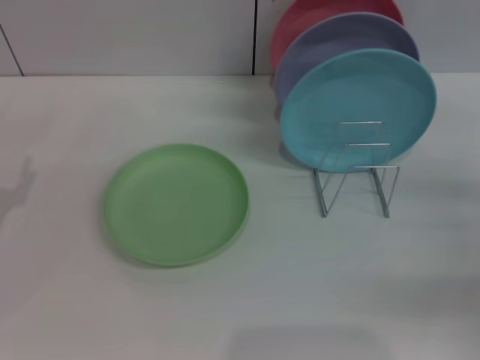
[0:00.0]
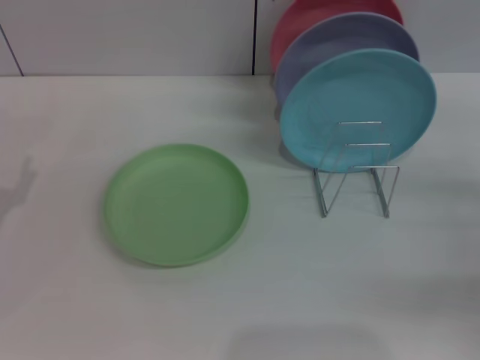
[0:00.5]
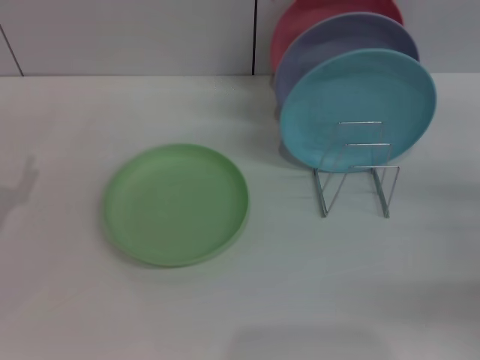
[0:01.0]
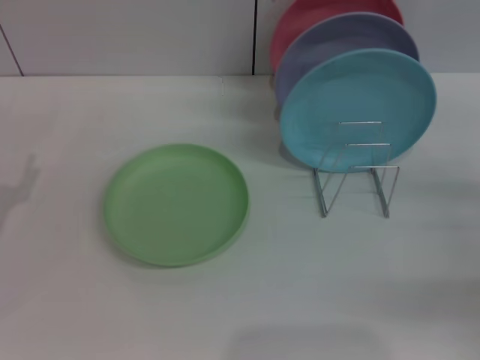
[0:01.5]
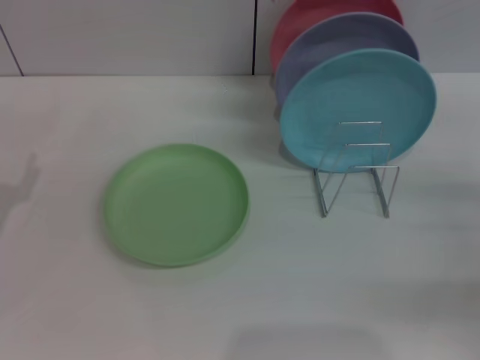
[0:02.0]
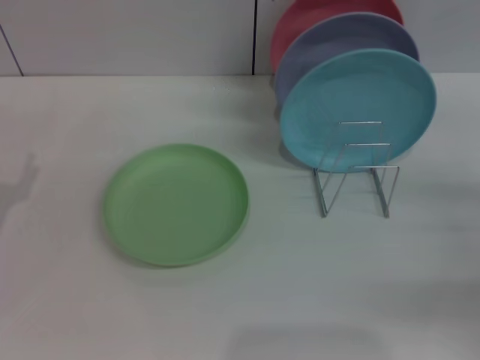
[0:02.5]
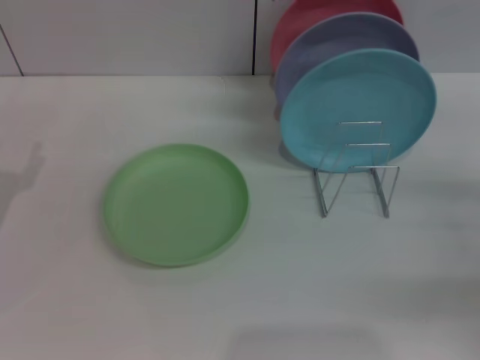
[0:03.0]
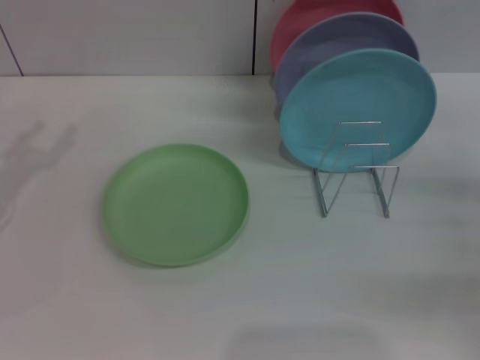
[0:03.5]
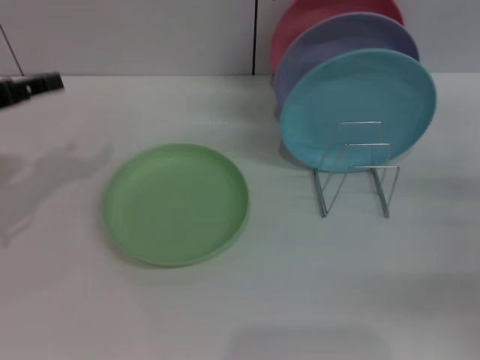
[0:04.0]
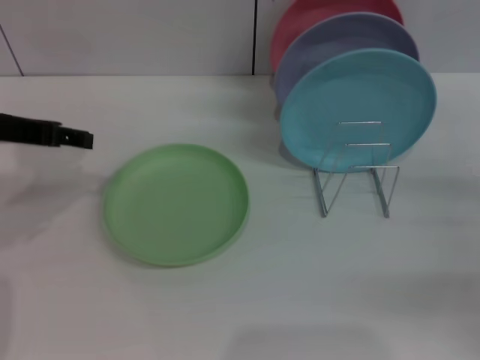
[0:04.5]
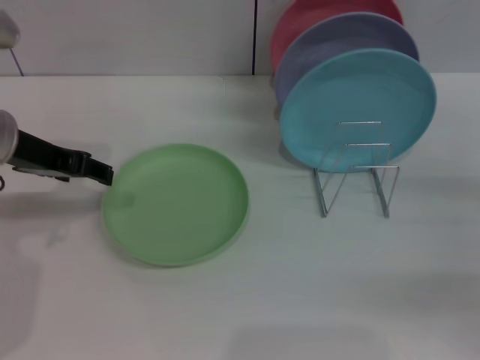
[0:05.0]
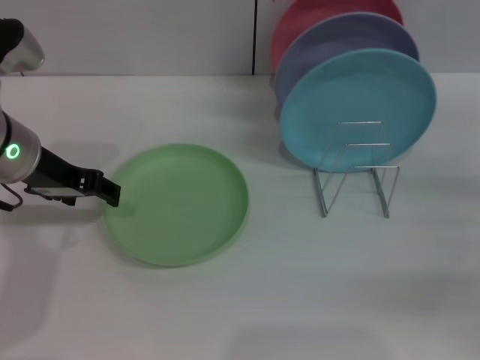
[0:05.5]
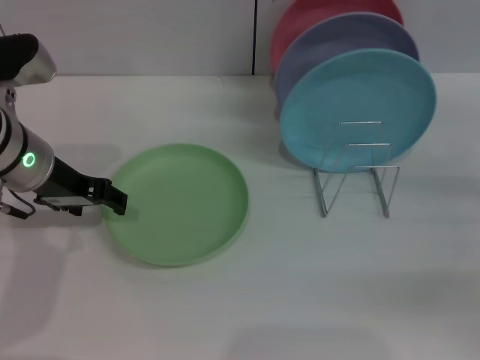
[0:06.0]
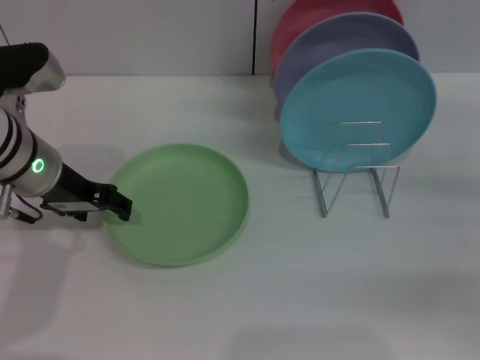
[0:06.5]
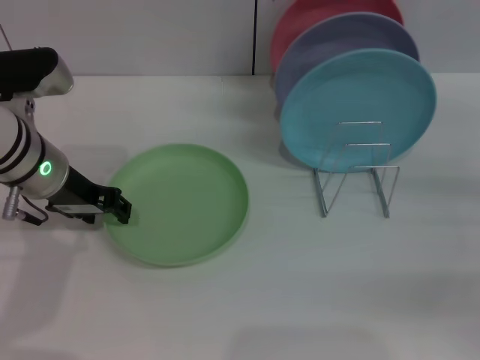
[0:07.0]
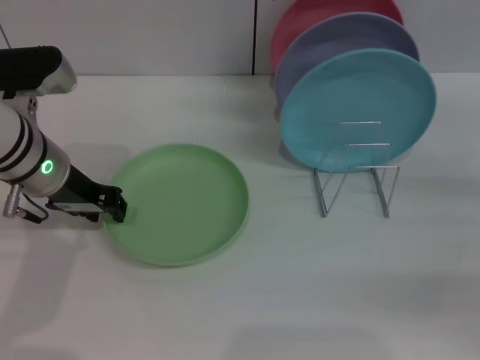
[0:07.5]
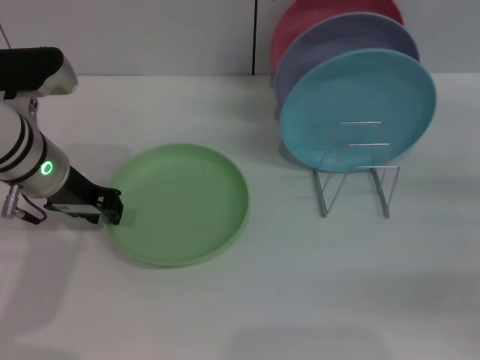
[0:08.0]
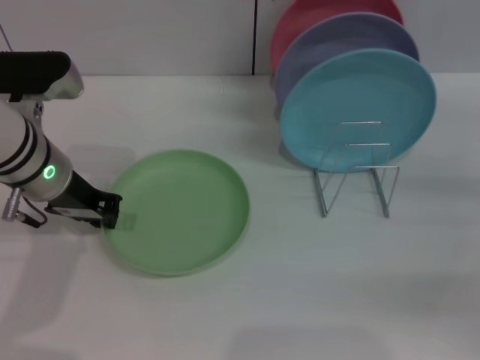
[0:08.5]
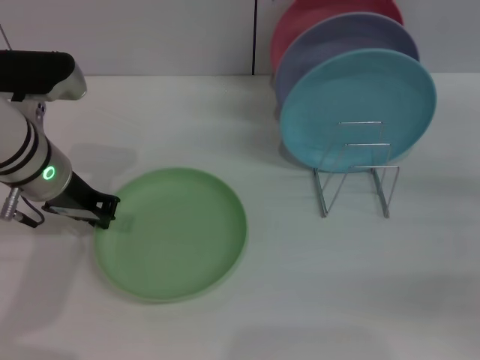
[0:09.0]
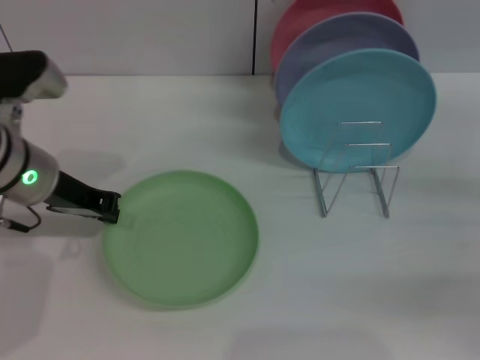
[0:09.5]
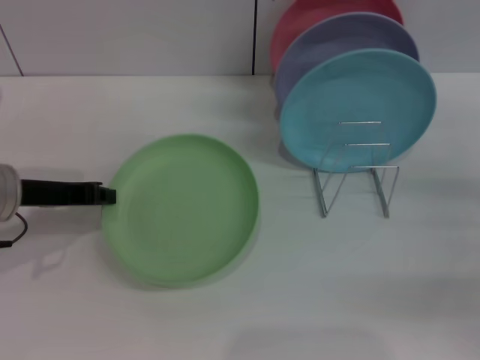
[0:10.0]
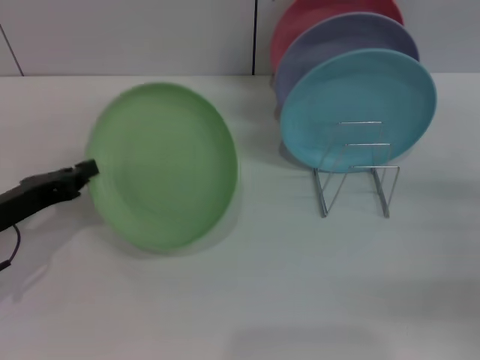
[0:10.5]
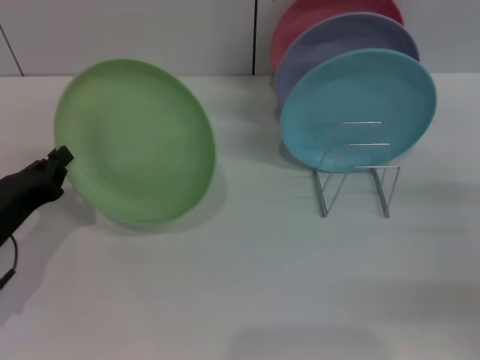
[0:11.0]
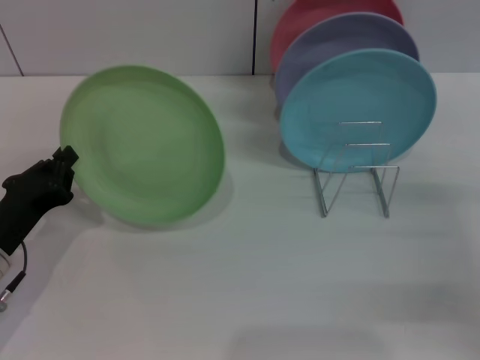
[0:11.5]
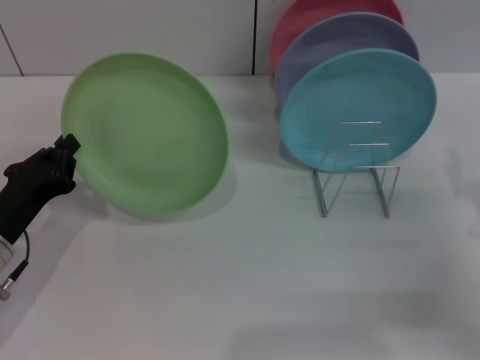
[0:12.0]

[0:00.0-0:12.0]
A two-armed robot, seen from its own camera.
Task of the whole recording: Grip the plate with one hand, pass it to the other, then set it on the shelf.
0.0 to 2.0 s: The two grippers keep their place.
2.0 to 4.0 s: The left gripper goes some 15 cm upward and forward.
4.0 to 6.0 s: The left gripper shifts about 10 cm to the right.
6.0 to 8.0 s: The left gripper closes up.
8.0 to 10.0 s: The left gripper moves to the left, approximately 5 cm, and closes its fingers.
10.0 to 12.0 s: The left gripper is displaced downward and backward by roughly 10 cm. Meanwhile the right gripper is displaced to the left by about 5 cm.

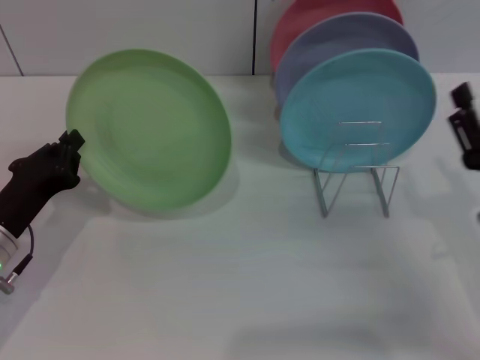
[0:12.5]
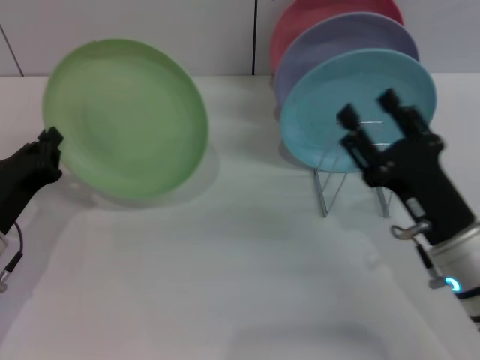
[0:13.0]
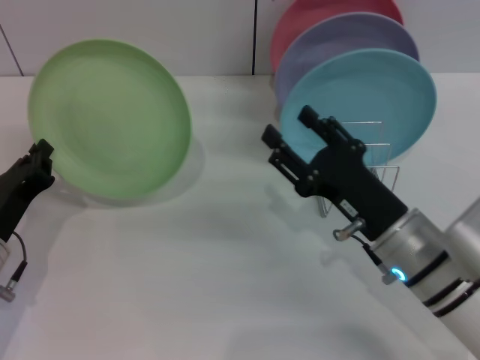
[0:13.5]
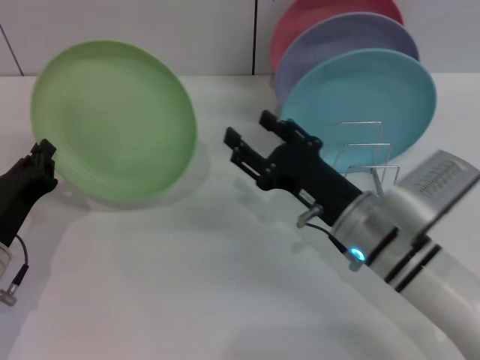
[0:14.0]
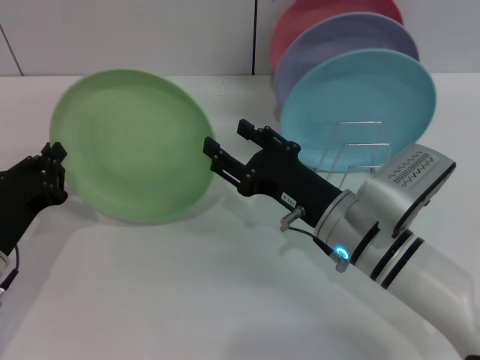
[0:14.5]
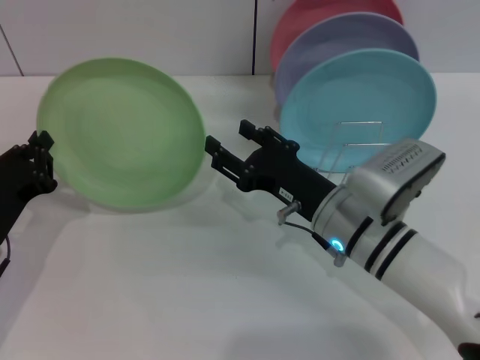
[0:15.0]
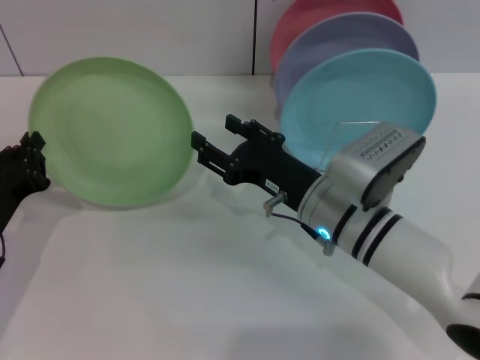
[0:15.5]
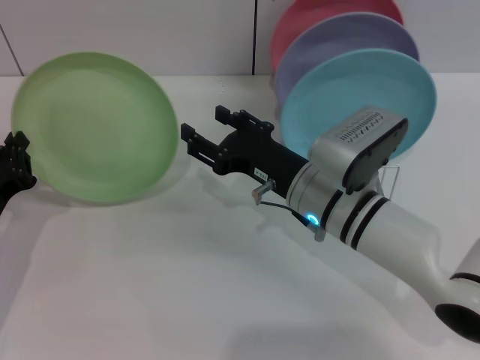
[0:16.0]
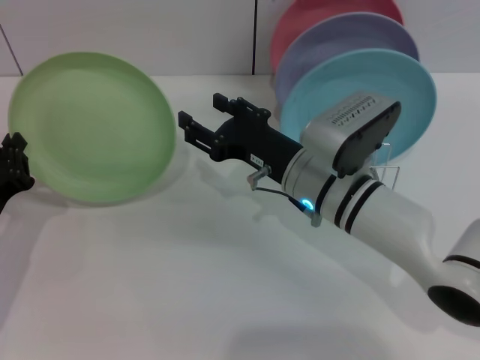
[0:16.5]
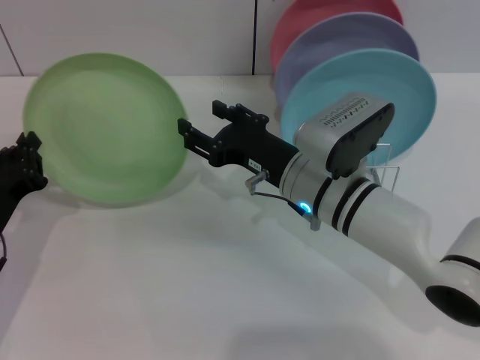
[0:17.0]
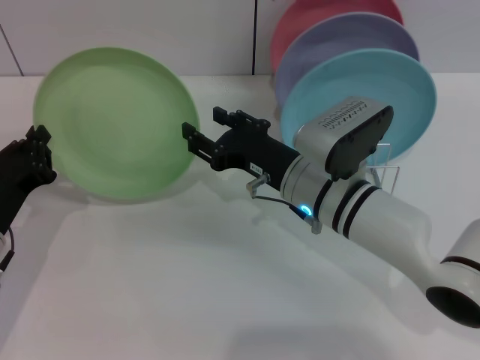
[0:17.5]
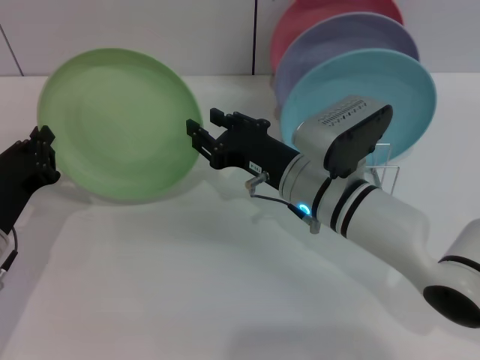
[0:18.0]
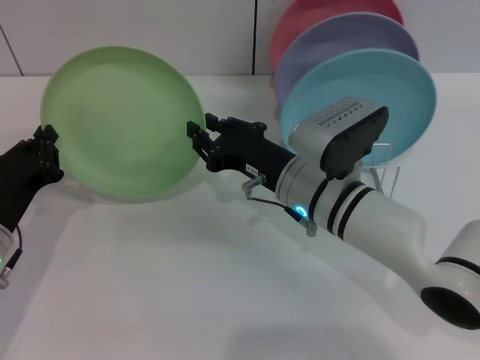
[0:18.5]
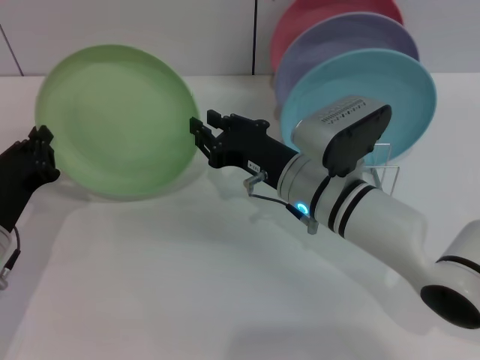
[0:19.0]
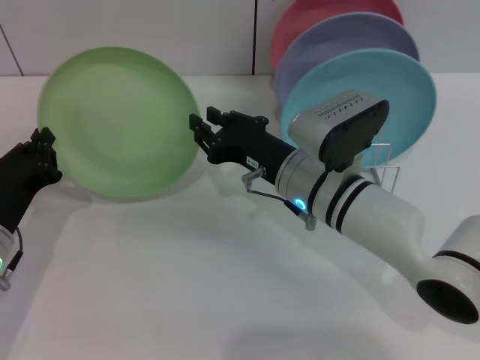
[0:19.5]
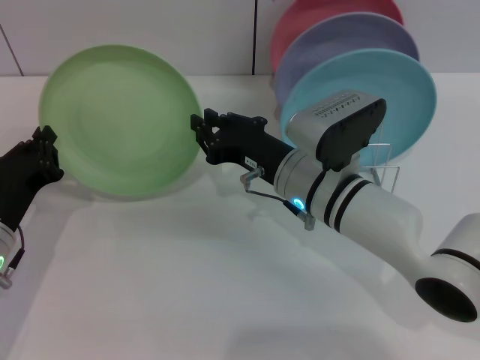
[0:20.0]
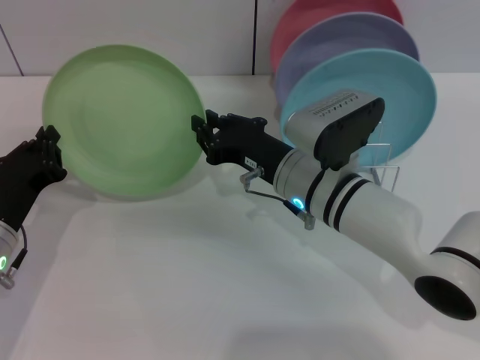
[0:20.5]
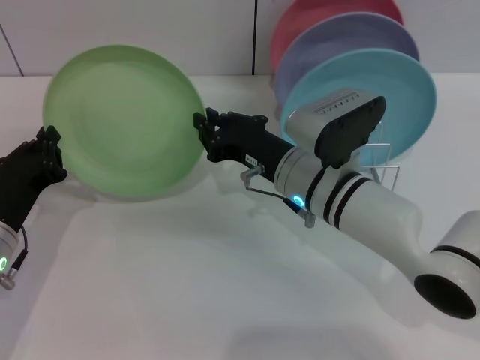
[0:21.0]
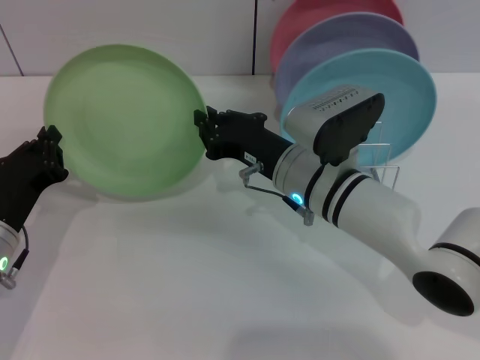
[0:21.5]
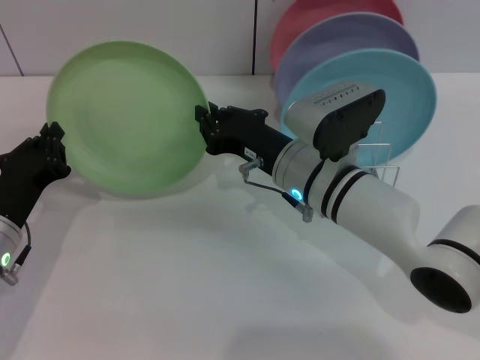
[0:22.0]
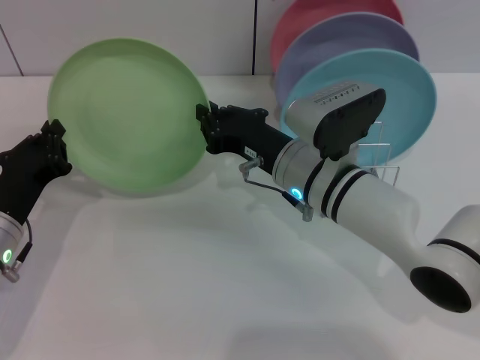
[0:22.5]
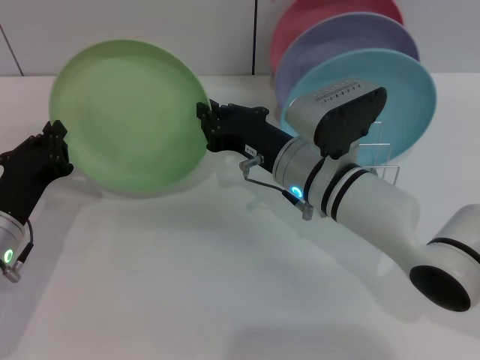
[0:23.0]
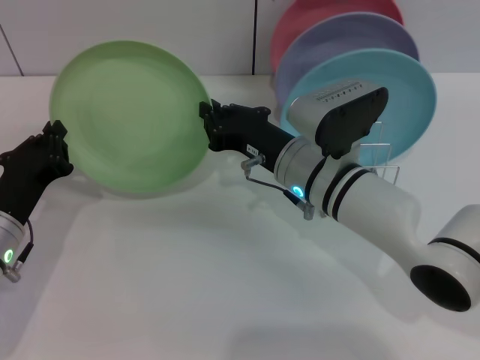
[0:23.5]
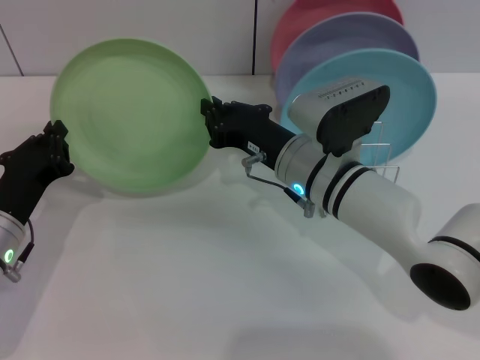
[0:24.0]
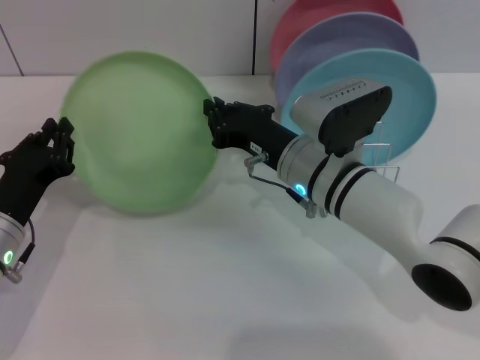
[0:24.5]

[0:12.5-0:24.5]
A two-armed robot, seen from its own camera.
Task of the whole recording: Grip the plate with one hand, pass it to the other, then set it on the shelf.
12.5 to 14.5 s: The right gripper is displaced to the left and forward by approximately 15 cm.
14.5 to 16.5 s: The right gripper shifts by about 5 cm.
16.5 to 18.5 s: The right gripper closes.
18.5 to 20.5 s: Both grippers stay about where they are.
20.5 to 24.5 s: Both grippers stay put.

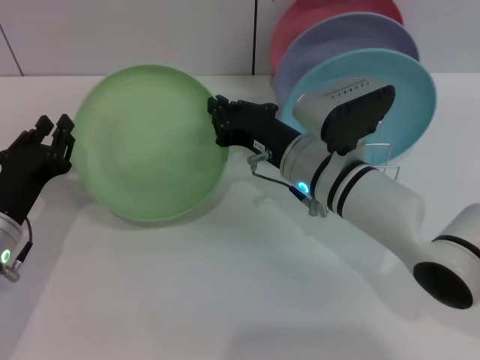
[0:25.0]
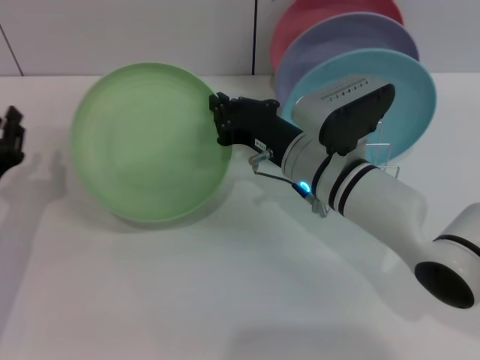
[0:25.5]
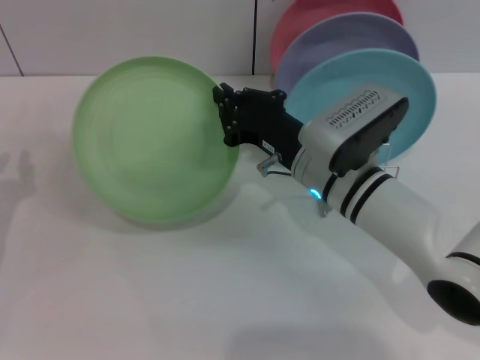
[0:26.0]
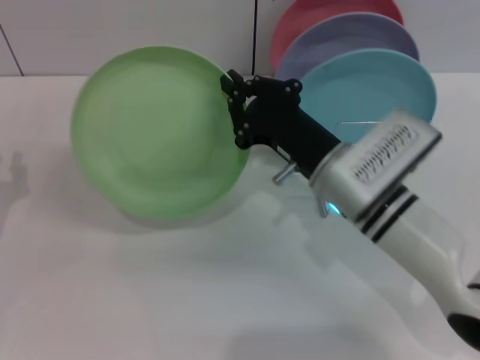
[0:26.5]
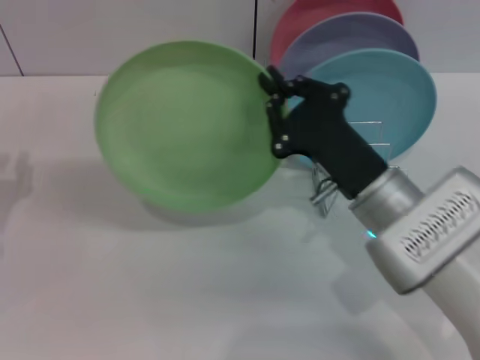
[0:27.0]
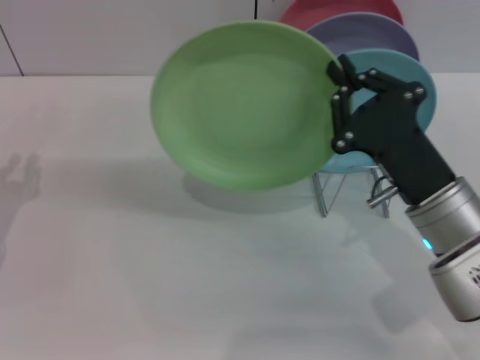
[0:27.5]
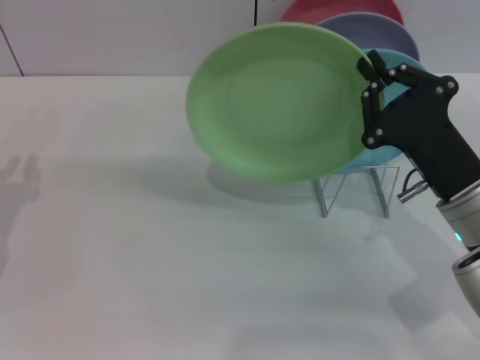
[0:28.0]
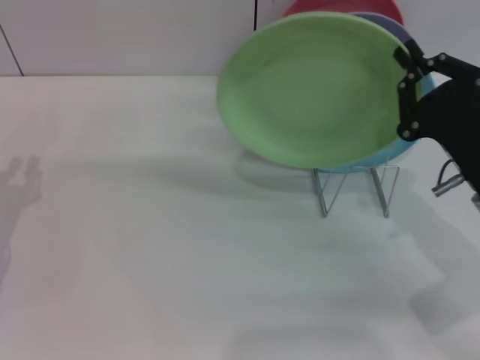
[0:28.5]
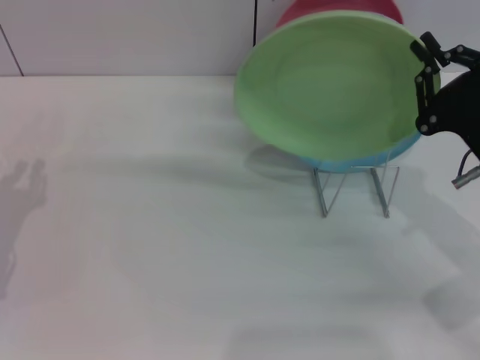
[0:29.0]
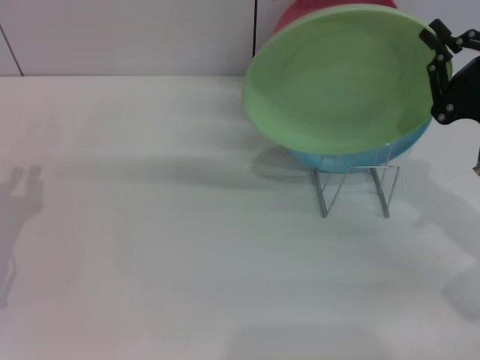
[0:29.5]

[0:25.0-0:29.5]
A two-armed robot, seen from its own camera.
Task of the whole recording: Grip the plate with one hand, pass it to the other, then set it on the shelf.
25.0 to 27.0 s: The right gripper shifts roughly 10 cm backward and to the right. Meanwhile the left gripper heads to the left, covering about 5 cm.
27.0 to 29.5 s: The right gripper travels to the right by approximately 15 cm.
